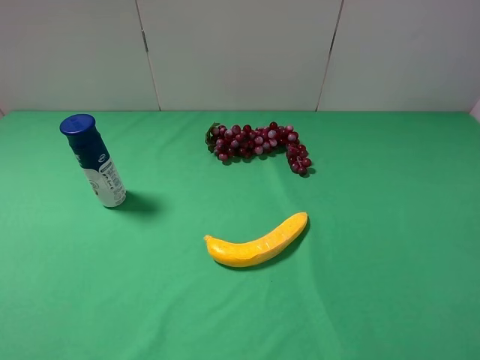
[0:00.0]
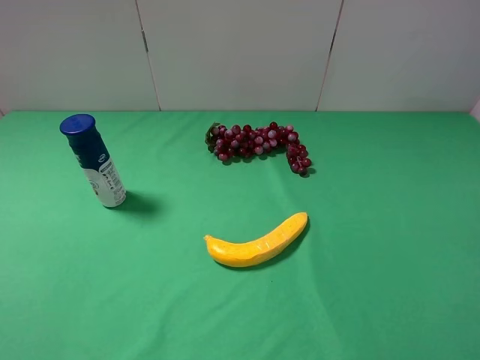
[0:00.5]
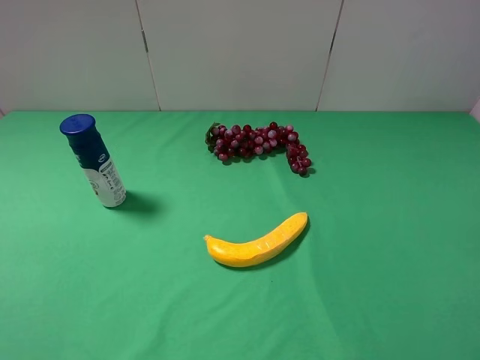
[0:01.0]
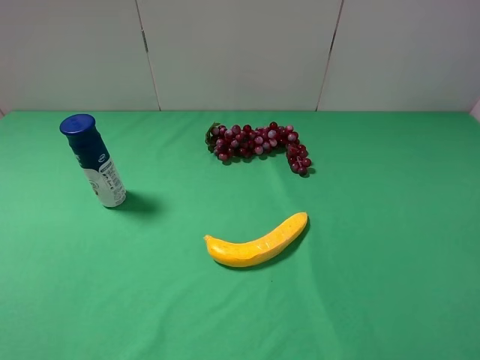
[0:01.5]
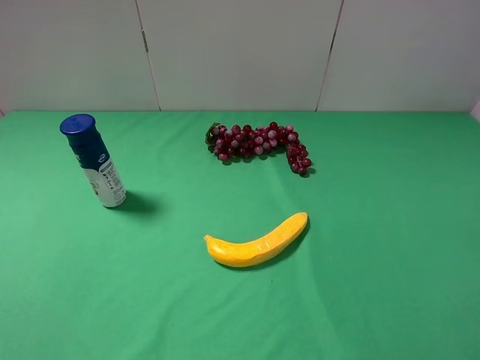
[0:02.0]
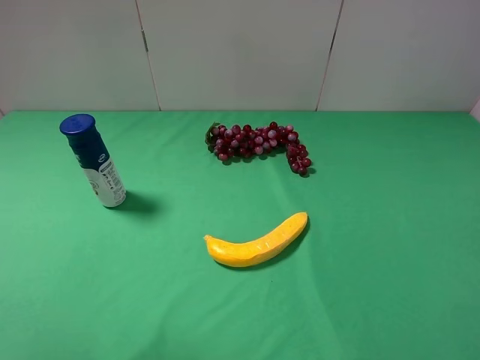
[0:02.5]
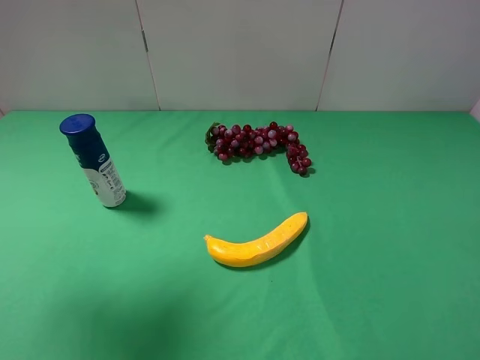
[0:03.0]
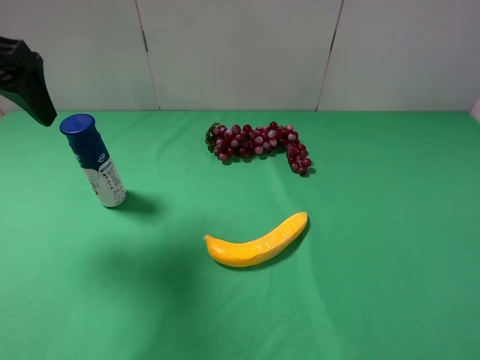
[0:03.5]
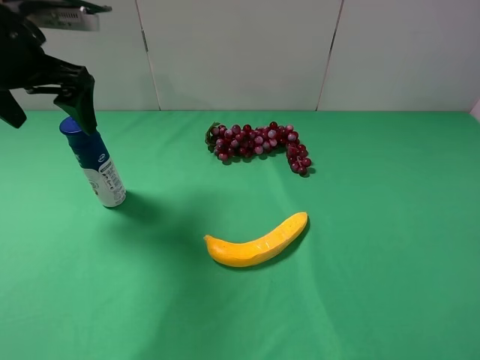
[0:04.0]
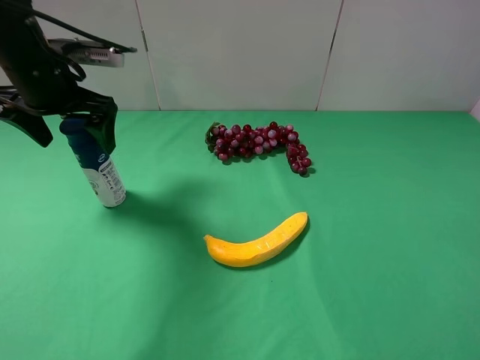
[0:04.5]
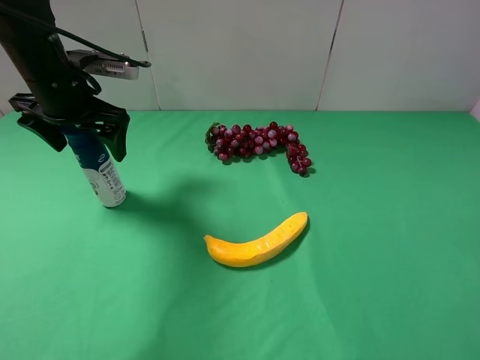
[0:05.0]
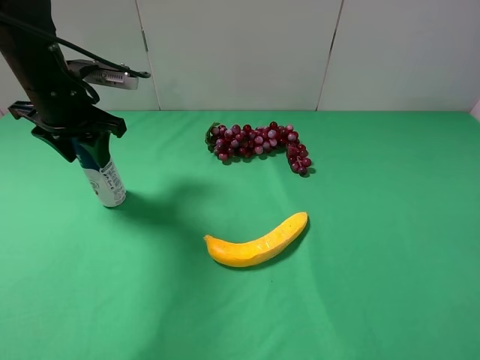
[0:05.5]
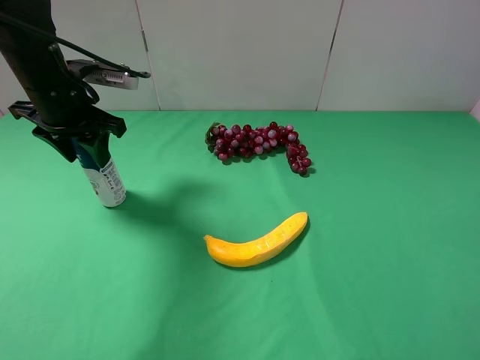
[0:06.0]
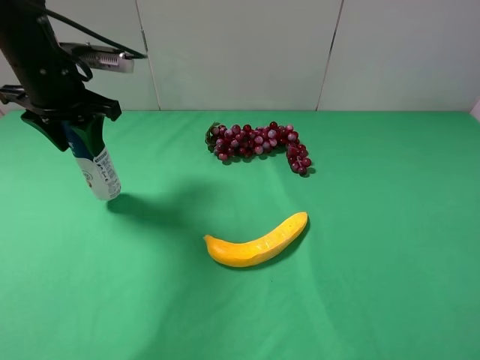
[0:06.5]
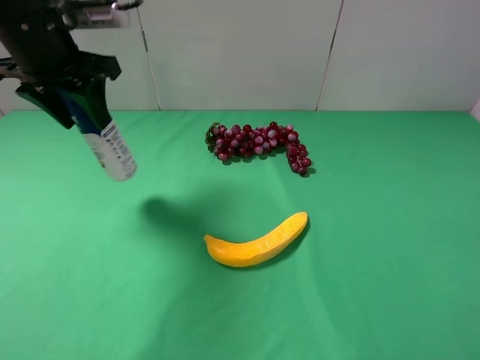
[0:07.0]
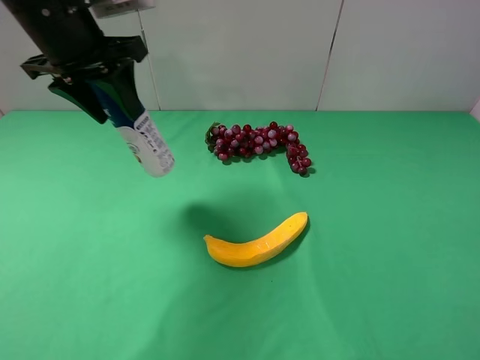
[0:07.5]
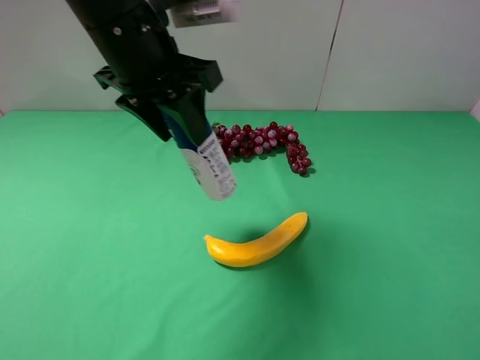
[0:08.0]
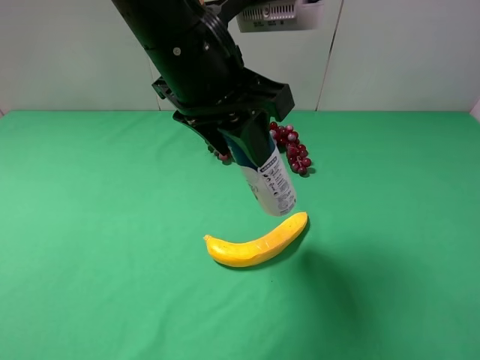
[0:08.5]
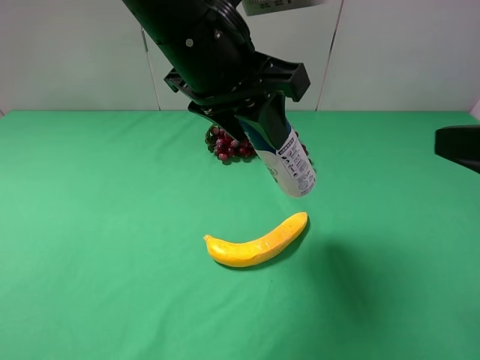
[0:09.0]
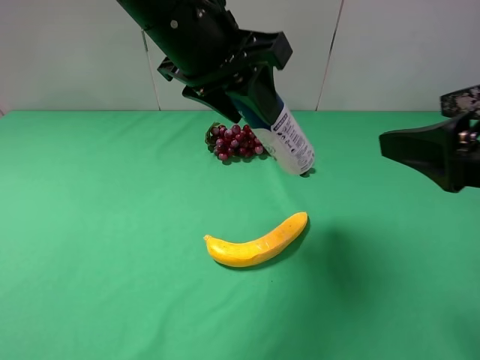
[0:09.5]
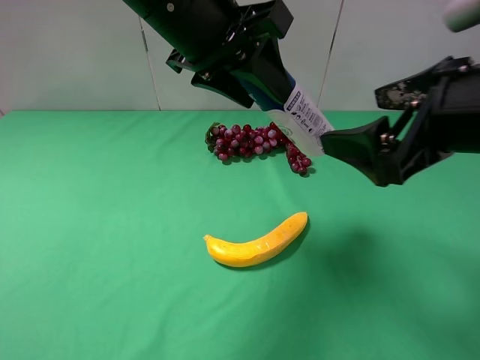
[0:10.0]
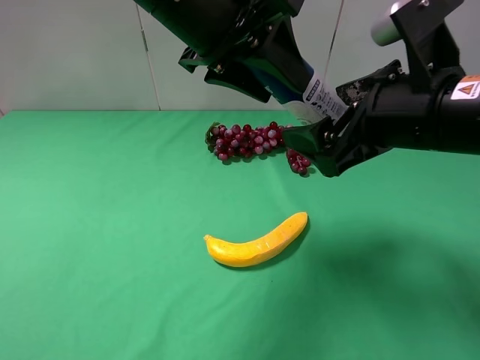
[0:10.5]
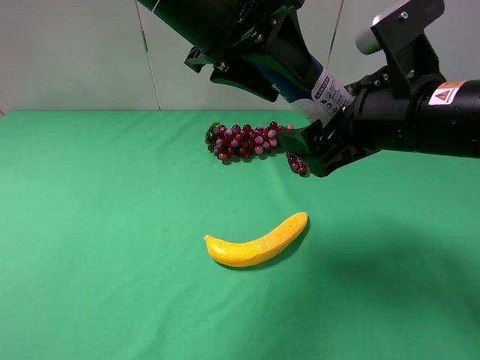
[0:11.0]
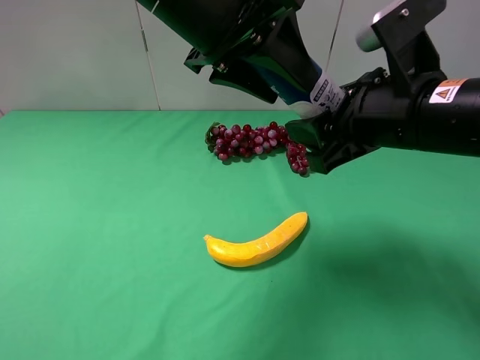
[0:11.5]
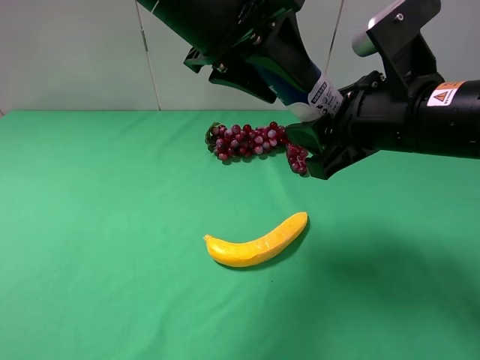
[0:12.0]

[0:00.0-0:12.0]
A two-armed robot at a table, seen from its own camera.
Task of the whole recording: use the left gripper to pick up the item and transfer it from the left gripper to the right gripper.
Step, 0:00.0 to 0:05.5: Use the left gripper to grab the yogurt on the left side of the table.
0:02.0 to 0:04.0: The left gripper heads forward, covering roughly 30 cm.
0:04.0 to 0:06.0: The left gripper heads downward, covering roughly 5 cm, and closes.
0:06.0 to 0:08.0: The left gripper shifts about 20 cm to the right, upward and backward.
0:08.0 to 0:10.0: The right gripper travels forward and to the left by about 20 cm.
0:10.0 to 0:12.0: The right gripper changes place by some 5 cm, and closes.

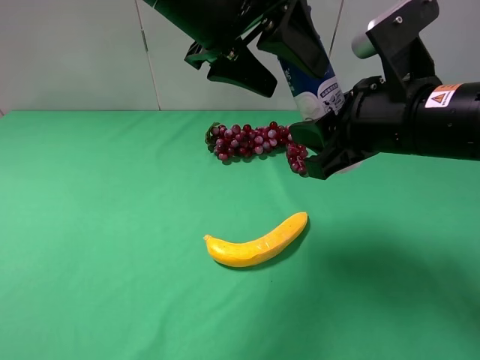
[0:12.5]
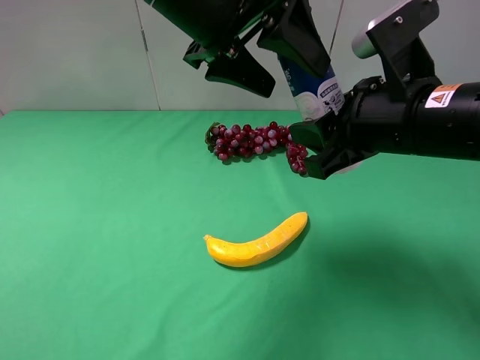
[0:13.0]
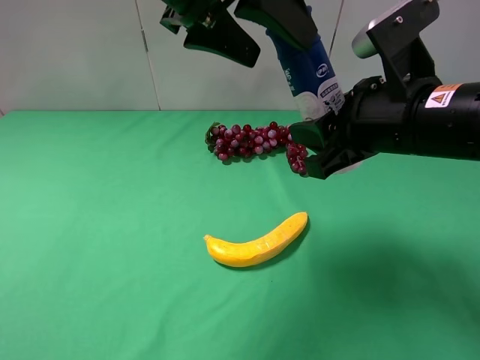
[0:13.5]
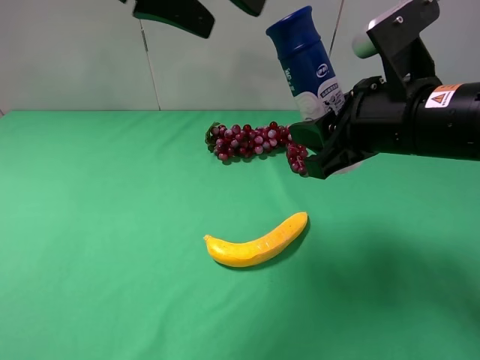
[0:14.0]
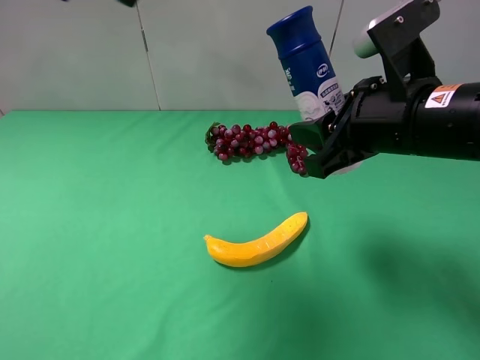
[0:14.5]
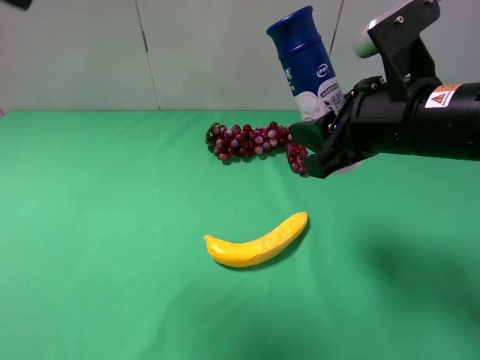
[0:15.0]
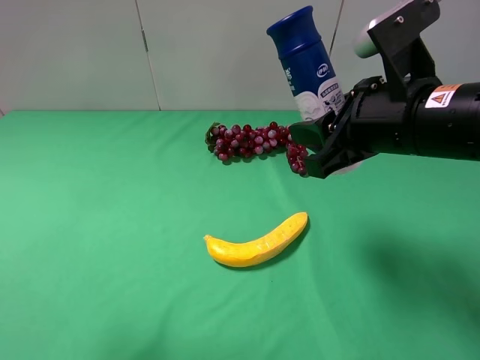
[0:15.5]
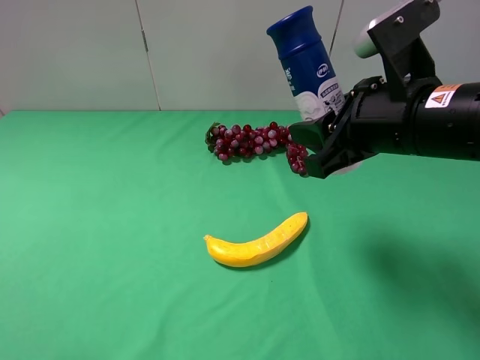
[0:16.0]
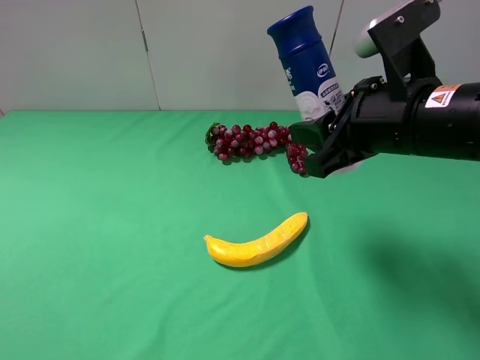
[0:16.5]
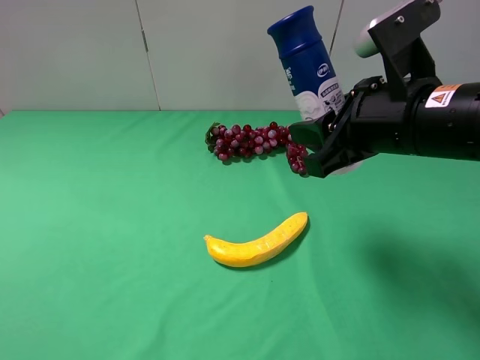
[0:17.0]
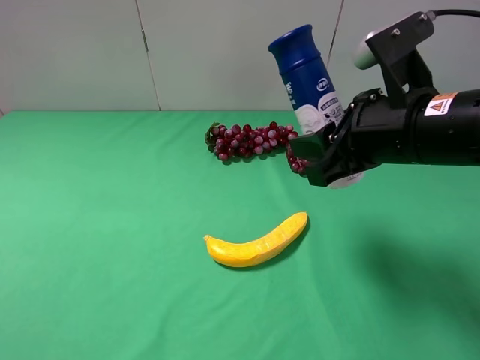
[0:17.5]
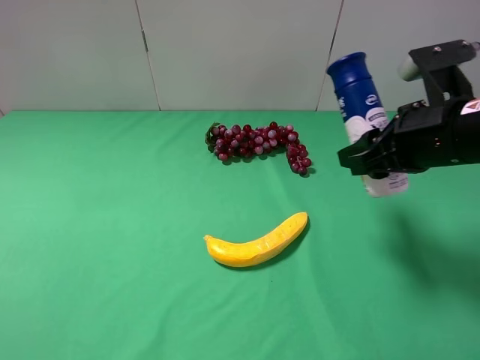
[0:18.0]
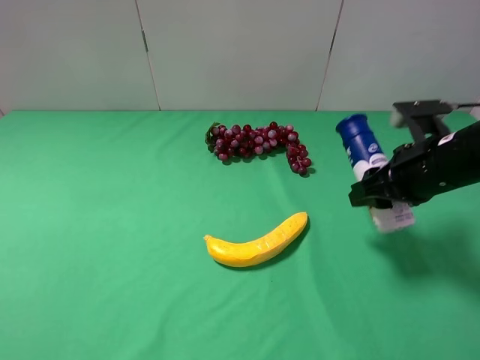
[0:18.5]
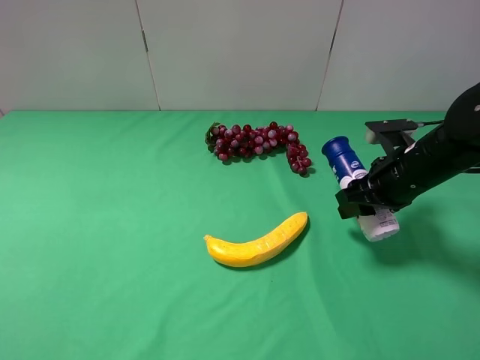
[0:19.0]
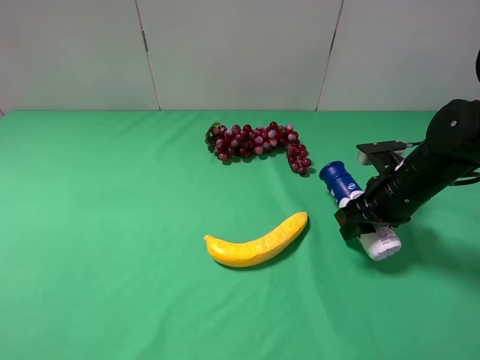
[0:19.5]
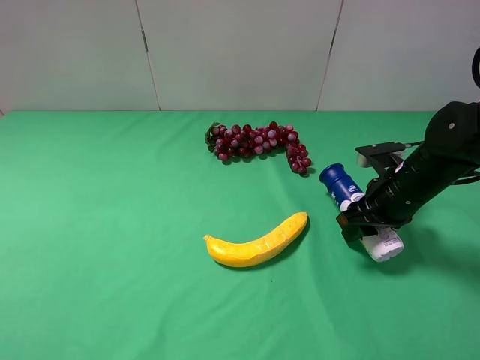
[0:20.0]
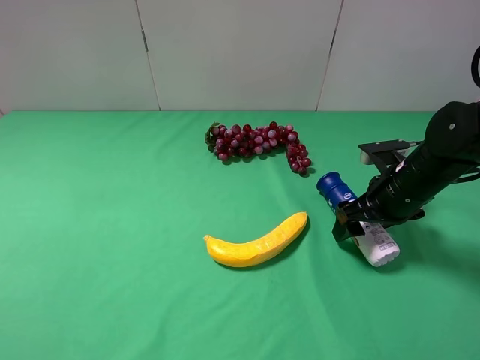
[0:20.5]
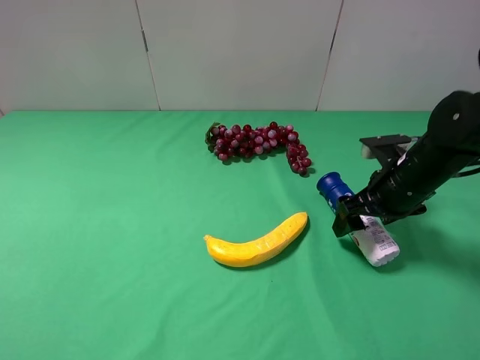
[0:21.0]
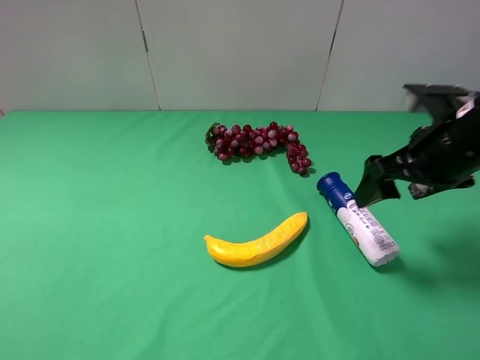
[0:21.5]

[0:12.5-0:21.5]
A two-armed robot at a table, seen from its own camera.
Task of the whole recording: use the left gripper to pick up the item and transfer it from the left gripper to the right gripper.
Step, 0:13.0 to 0:20.5: The right gripper places yogurt on the right side of the table.
0:12.5 to 0:14.5: The left gripper shifts approximately 20 cm to the left, upward and backward, and opens.
0:14.5 to 0:17.0: The left gripper goes roughly 30 cm backward, downward and to the left.
0:17.0 to 0:19.5: The right gripper shifts approximately 15 cm downward, to the right and forward.
0:19.5 to 0:21.5: The right gripper heads upward, covering about 10 cm, and opens.

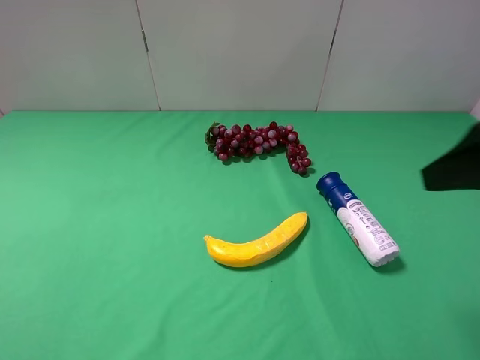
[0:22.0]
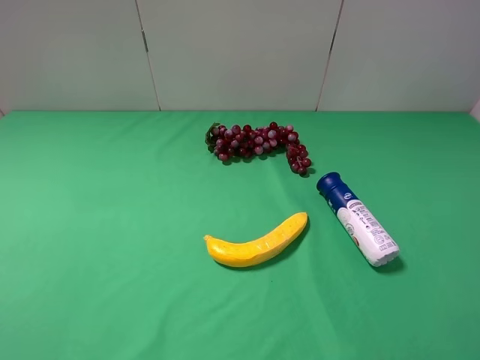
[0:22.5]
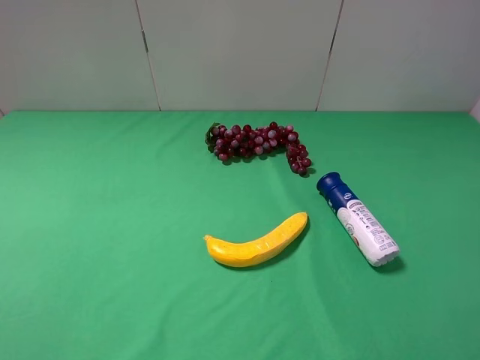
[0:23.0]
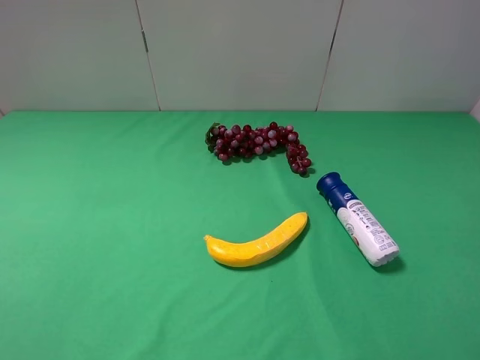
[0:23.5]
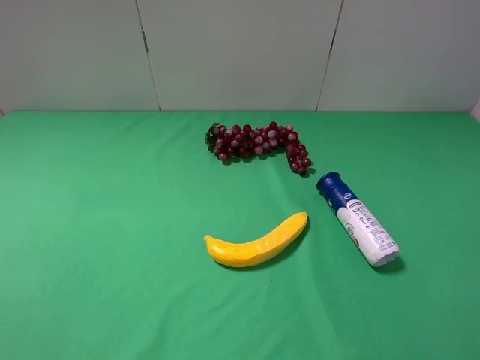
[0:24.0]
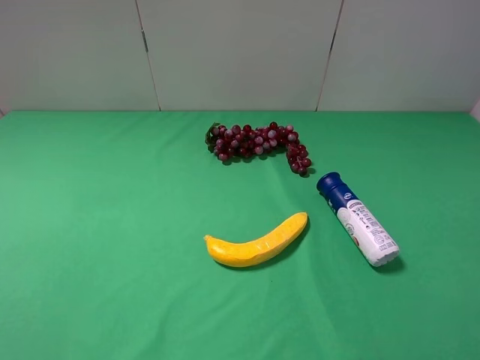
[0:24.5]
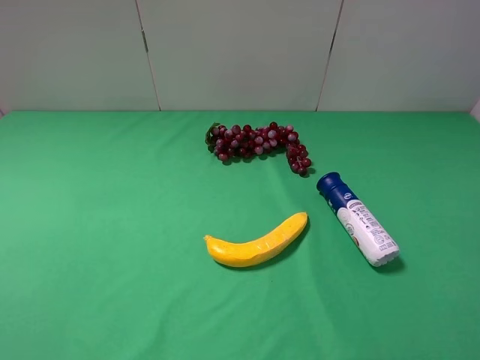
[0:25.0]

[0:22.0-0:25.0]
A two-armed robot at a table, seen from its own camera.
Task of the whole recording: use the left gripper to pick up the item and transfer it from the left gripper to the right gripper.
0:22.0 to 0:23.5: The right gripper heads backward, covering approximately 10 cm.
